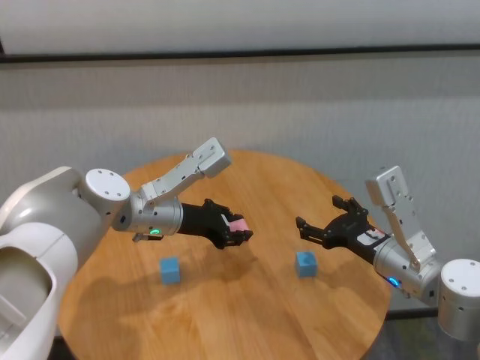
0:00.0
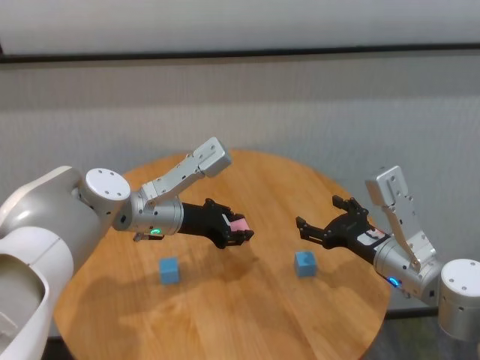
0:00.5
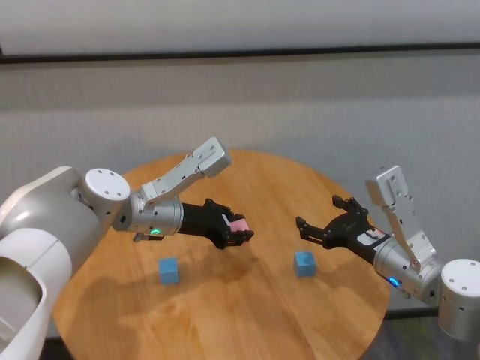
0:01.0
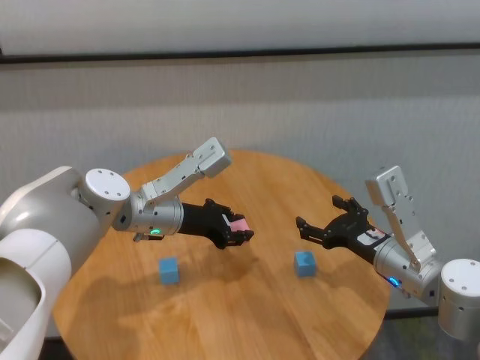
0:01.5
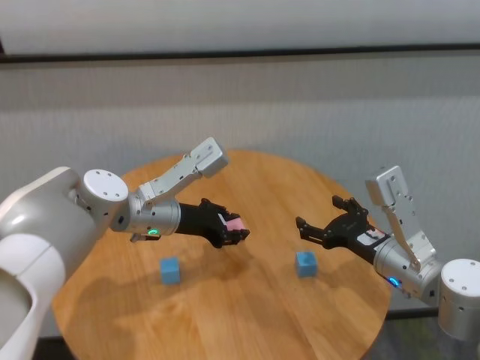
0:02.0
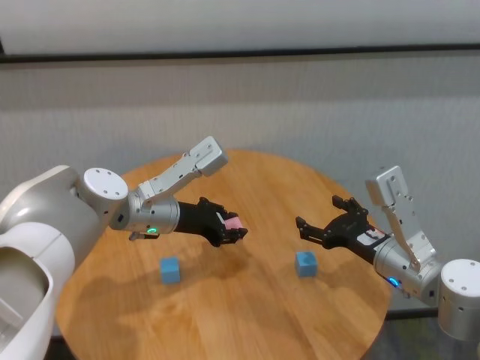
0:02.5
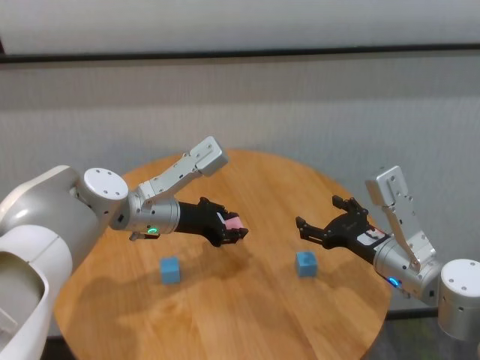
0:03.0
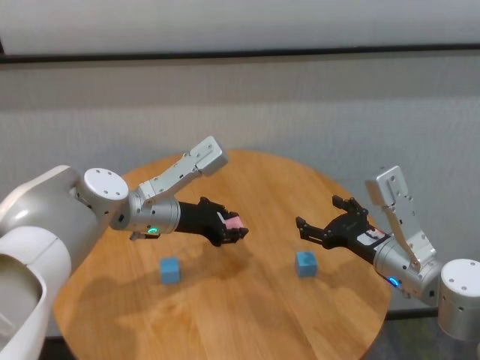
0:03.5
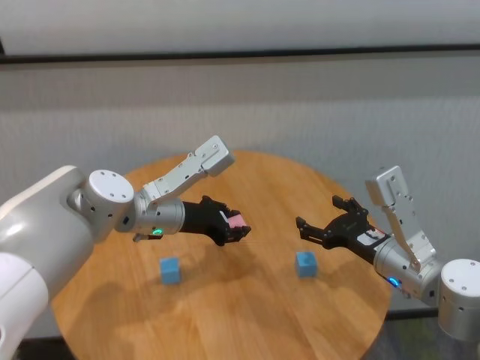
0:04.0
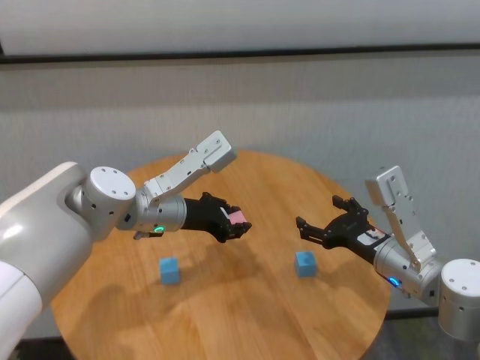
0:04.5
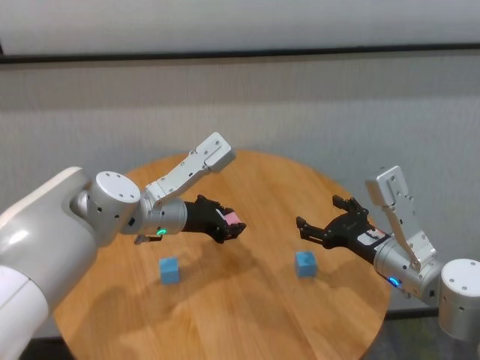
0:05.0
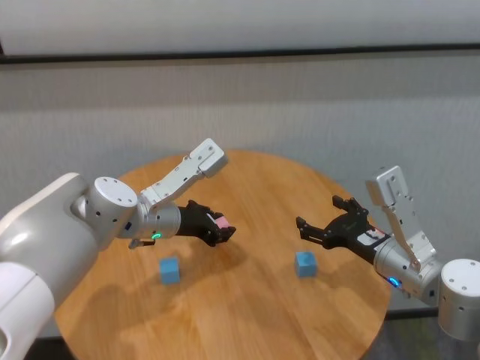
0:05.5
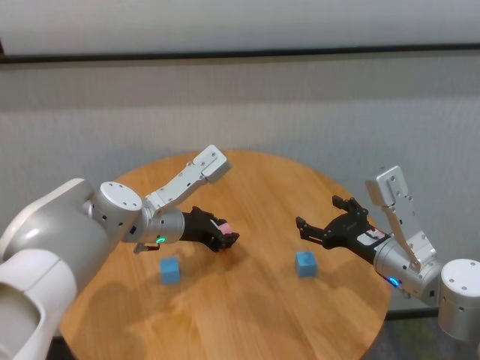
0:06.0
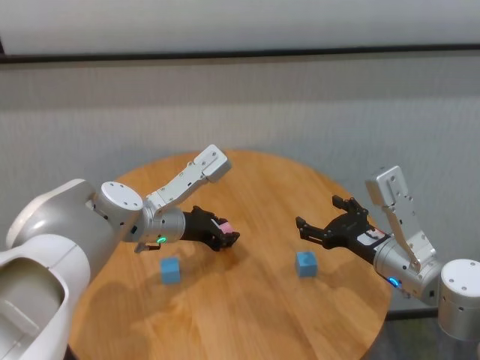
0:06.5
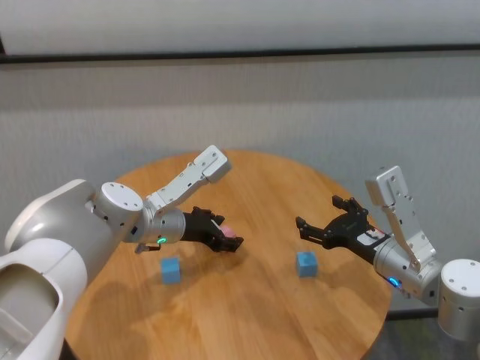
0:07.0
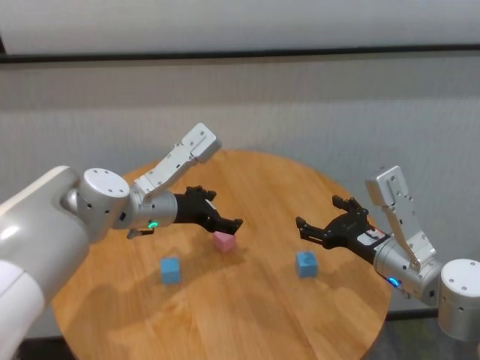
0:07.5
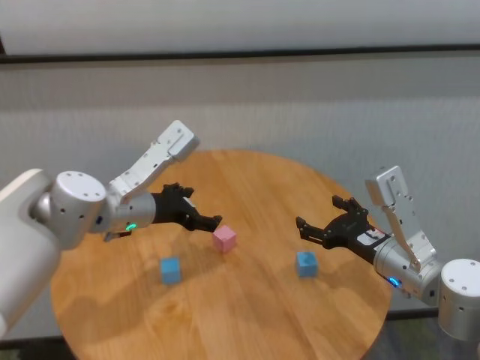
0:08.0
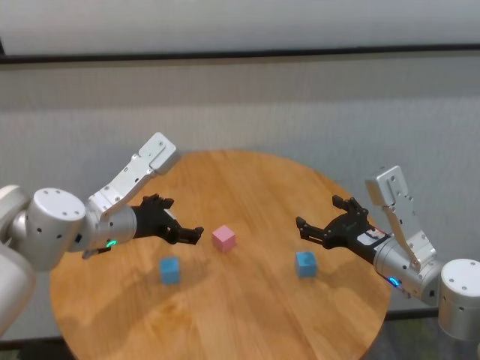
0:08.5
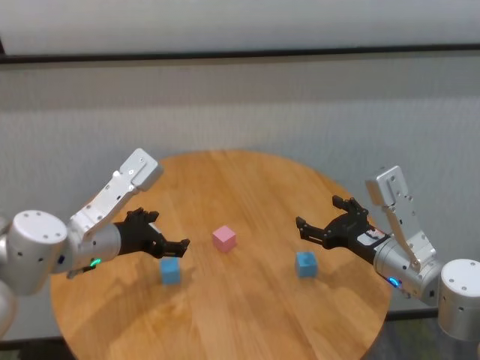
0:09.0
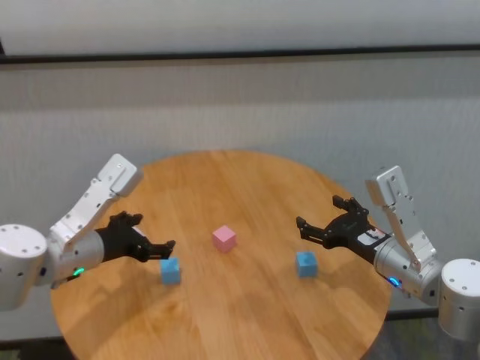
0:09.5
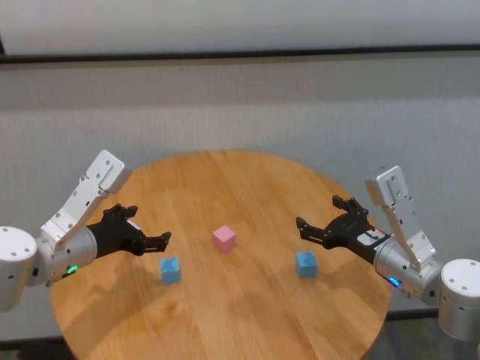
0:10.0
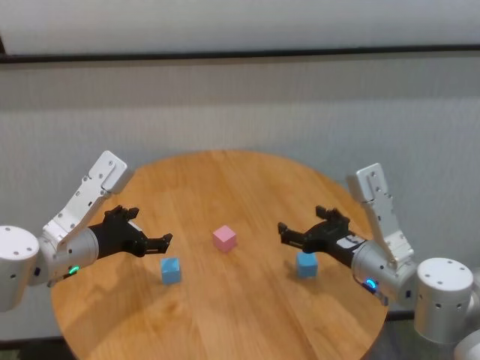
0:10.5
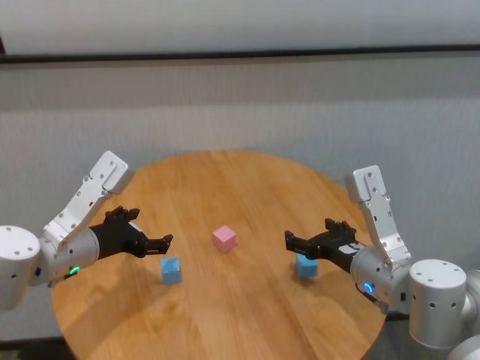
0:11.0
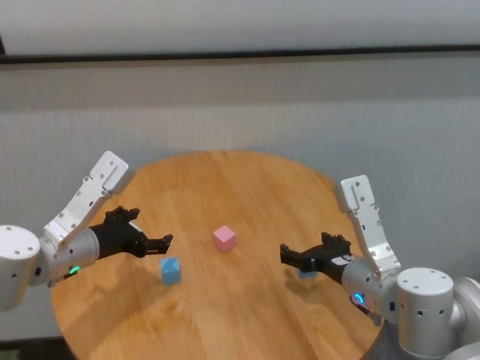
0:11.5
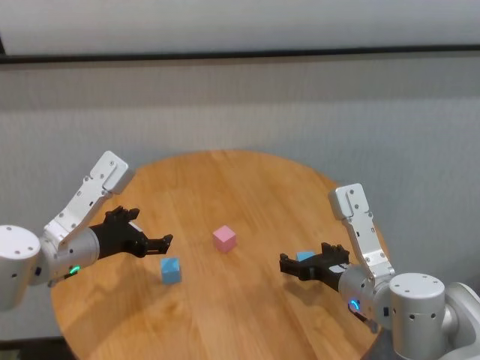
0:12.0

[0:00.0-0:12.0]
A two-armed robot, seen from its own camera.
Task of the whole recording: stack building blocks on the table.
Step, 0:00.0 to 0:07.0: Place the pink building block in the center of table with left gripper.

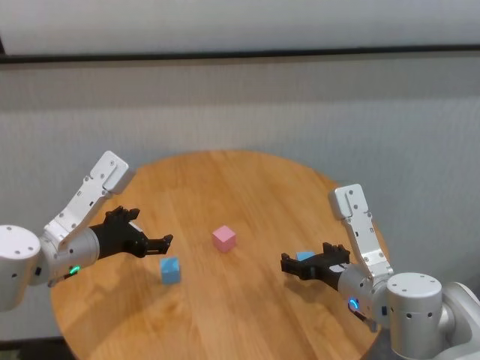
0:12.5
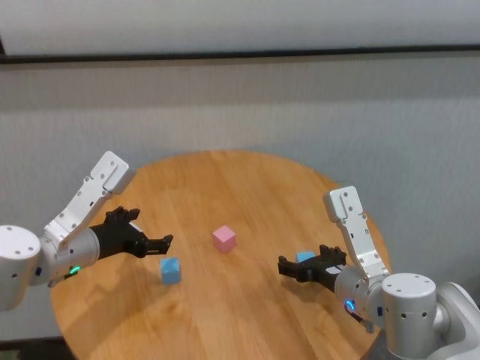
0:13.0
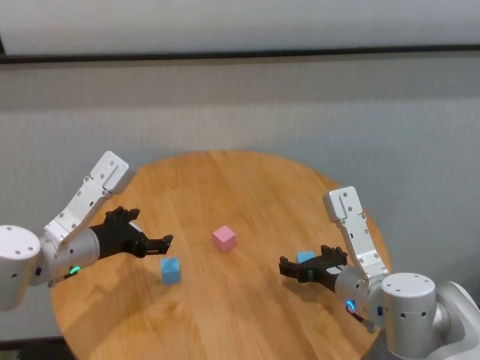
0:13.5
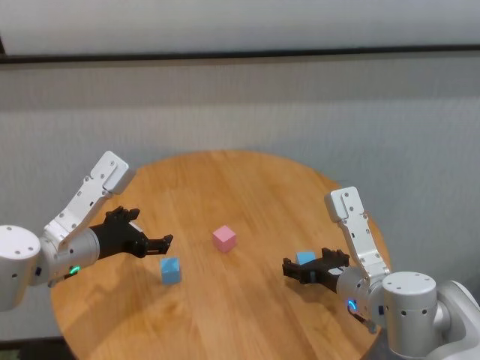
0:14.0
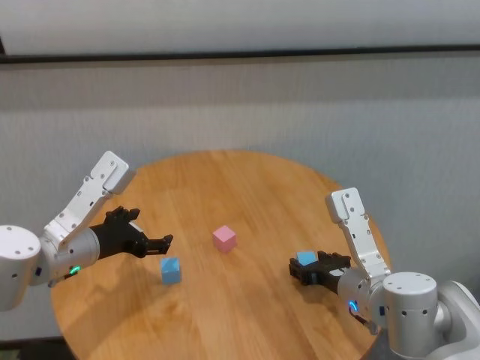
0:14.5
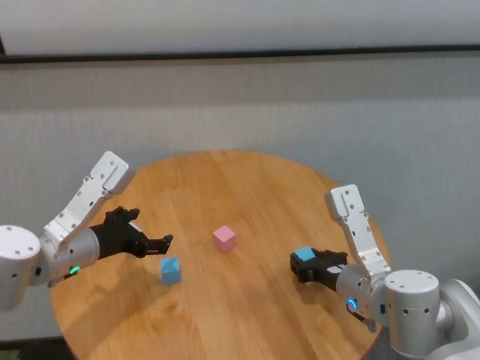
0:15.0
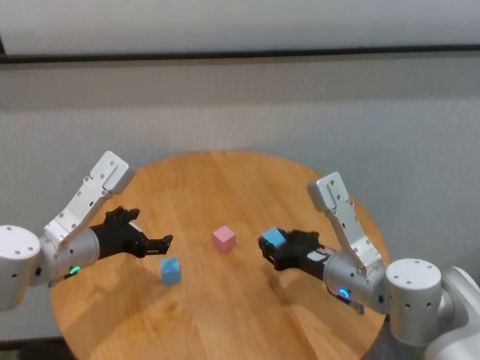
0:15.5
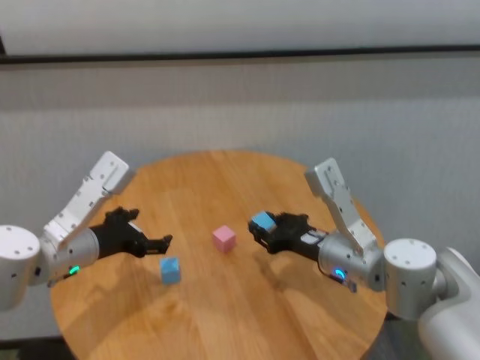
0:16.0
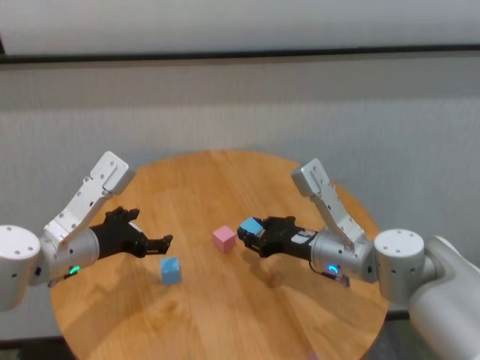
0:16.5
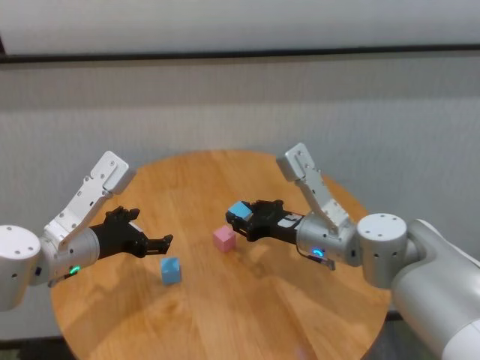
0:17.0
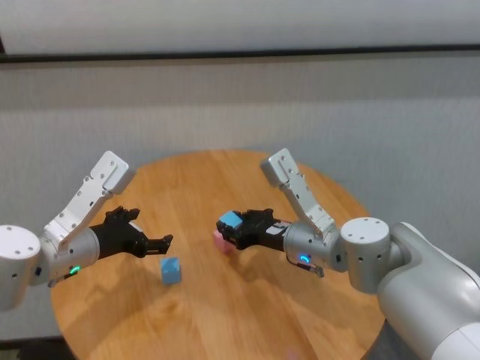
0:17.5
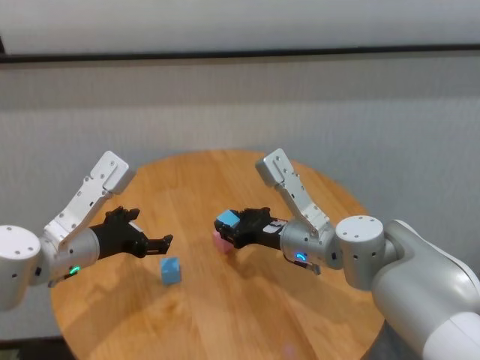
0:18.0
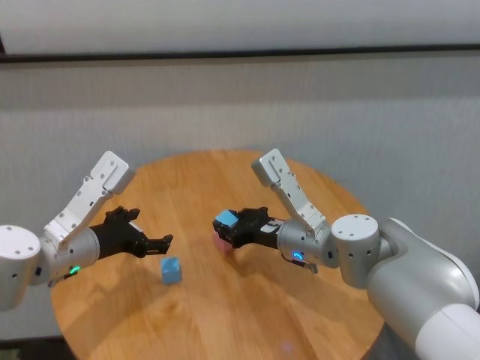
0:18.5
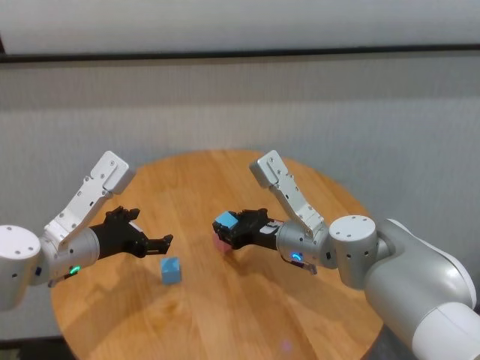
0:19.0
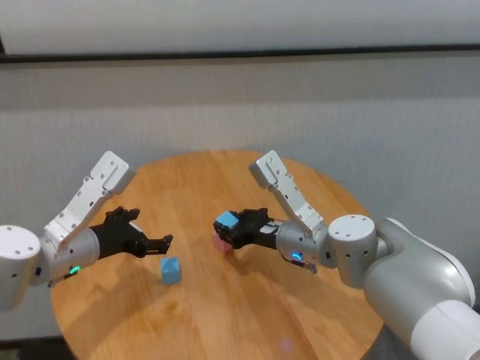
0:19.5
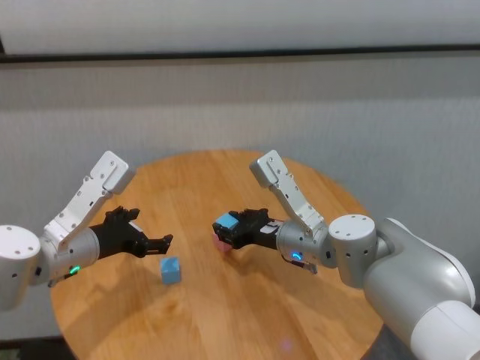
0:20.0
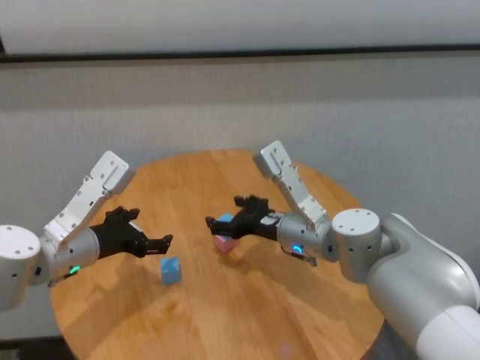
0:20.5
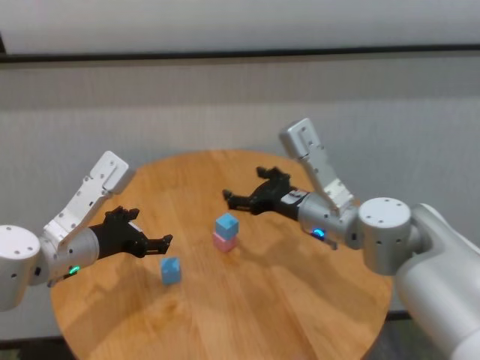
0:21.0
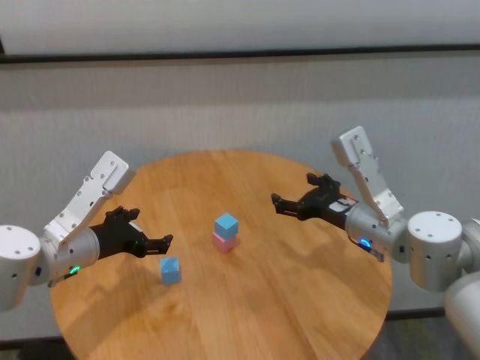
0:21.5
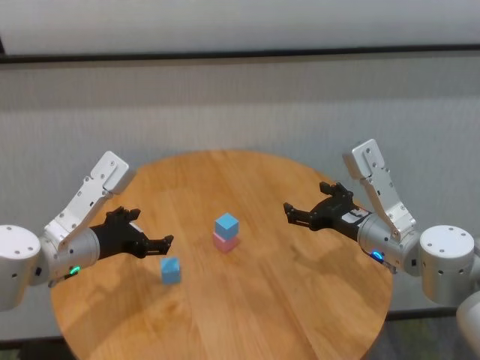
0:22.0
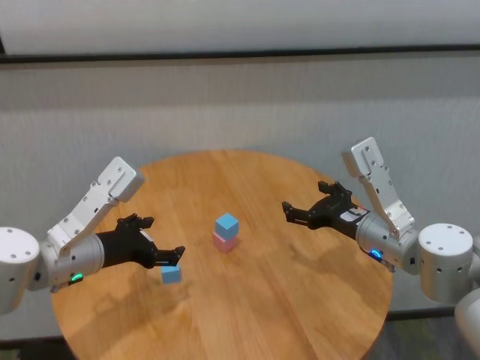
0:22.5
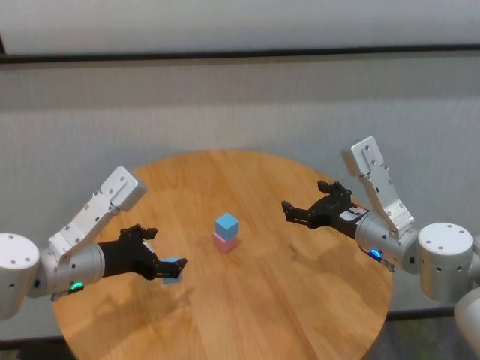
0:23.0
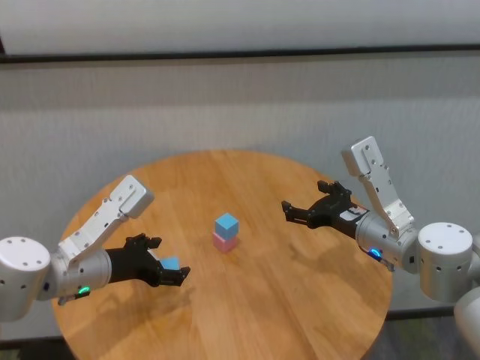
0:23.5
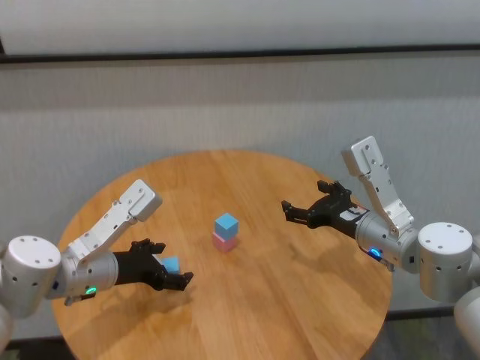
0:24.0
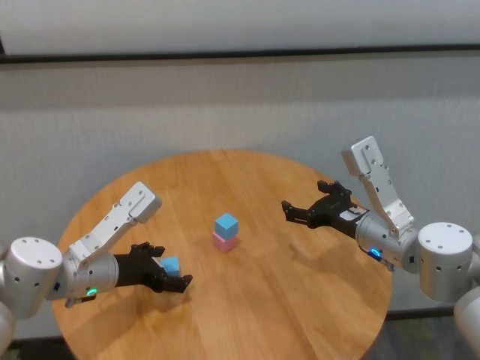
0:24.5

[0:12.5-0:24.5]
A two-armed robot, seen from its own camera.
Task of the whole recording: stack building blocks on the table.
Step, 0:12.5 to 0:20.0: Place the blue building block on the pink building blocks with right gripper.

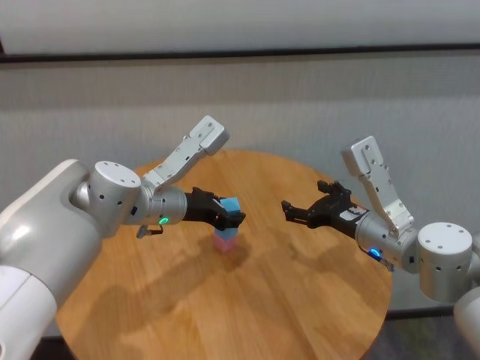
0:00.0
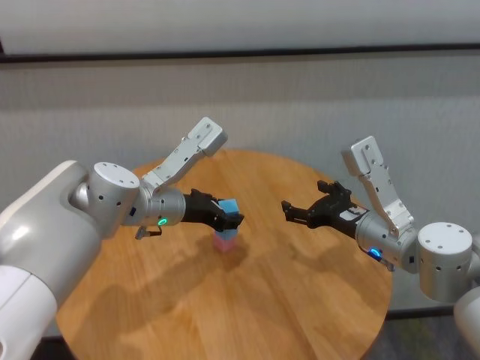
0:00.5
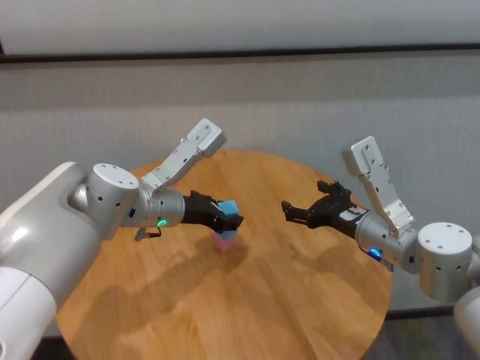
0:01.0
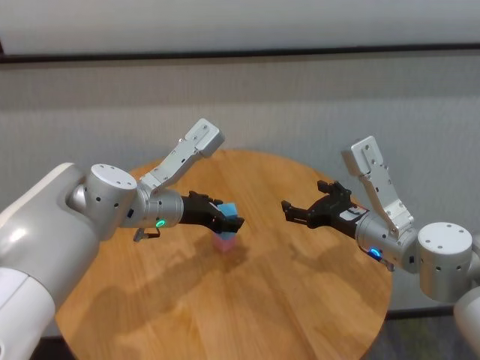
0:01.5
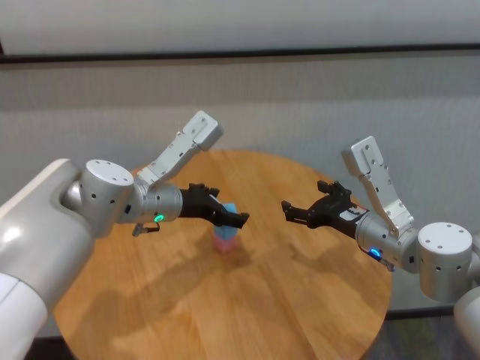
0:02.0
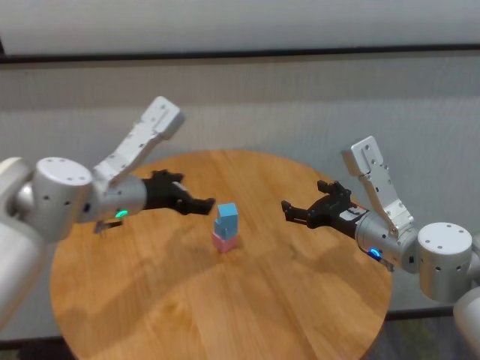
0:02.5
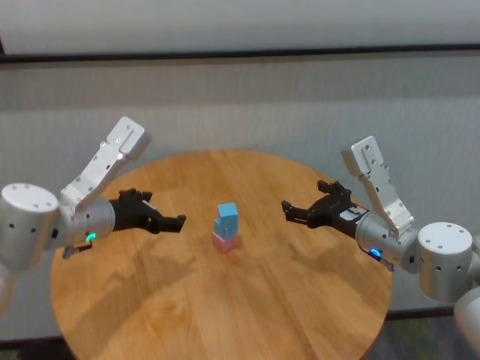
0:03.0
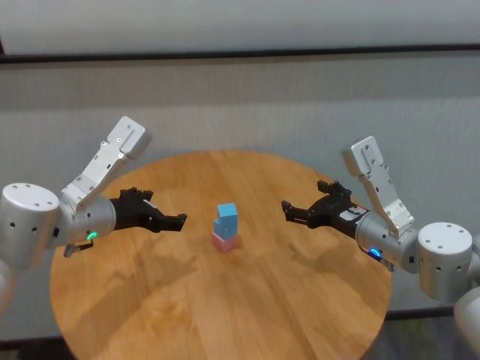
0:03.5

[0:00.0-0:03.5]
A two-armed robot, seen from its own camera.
Task of the whole recording: stack building blocks on the table.
Step, 0:00.0 to 0:02.0: Place the blue building block on the blue building blocks with left gripper.
